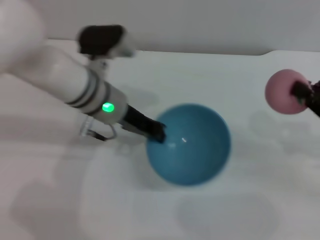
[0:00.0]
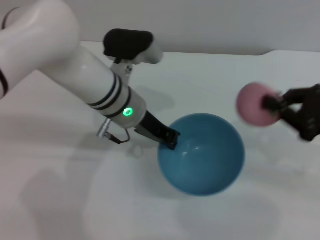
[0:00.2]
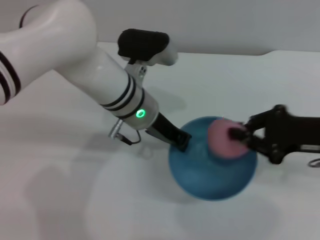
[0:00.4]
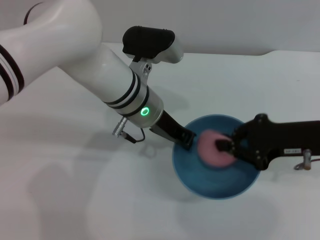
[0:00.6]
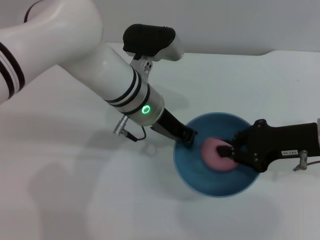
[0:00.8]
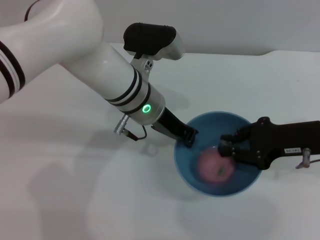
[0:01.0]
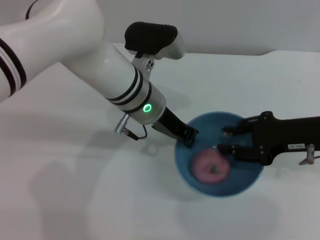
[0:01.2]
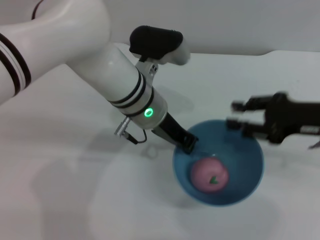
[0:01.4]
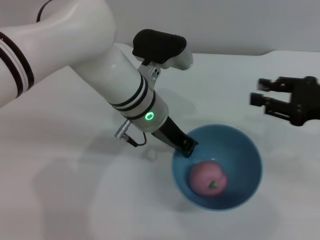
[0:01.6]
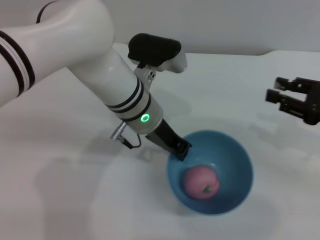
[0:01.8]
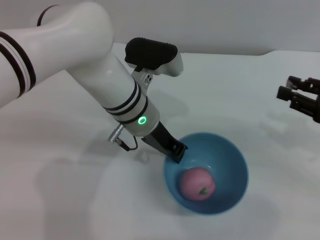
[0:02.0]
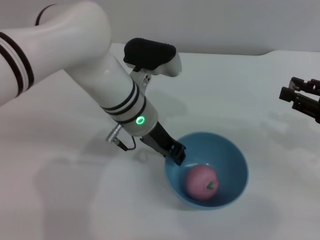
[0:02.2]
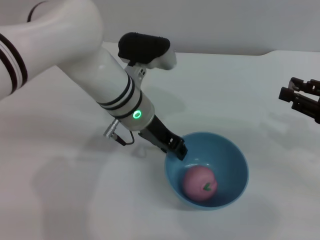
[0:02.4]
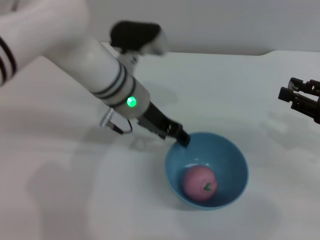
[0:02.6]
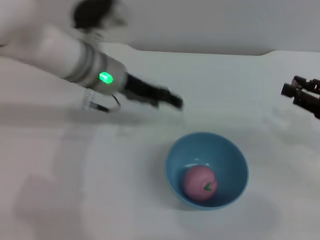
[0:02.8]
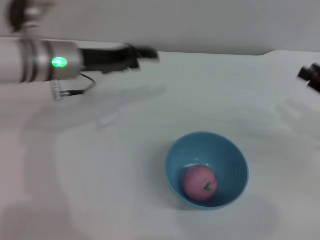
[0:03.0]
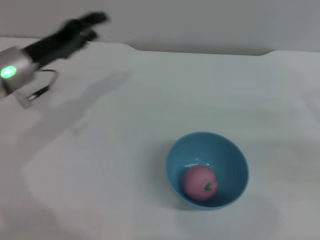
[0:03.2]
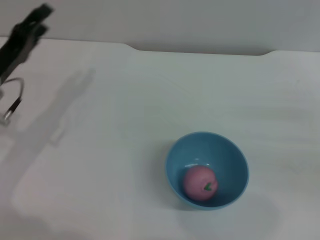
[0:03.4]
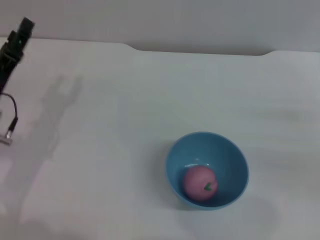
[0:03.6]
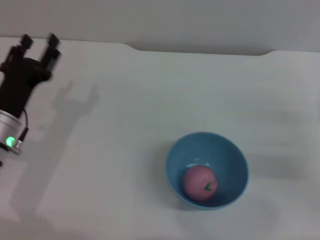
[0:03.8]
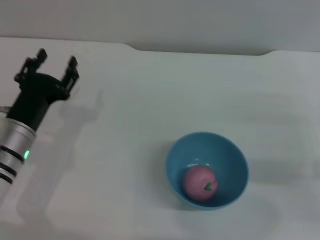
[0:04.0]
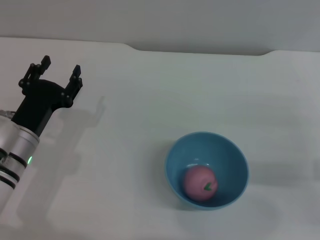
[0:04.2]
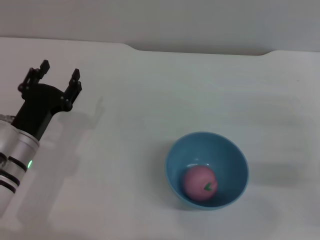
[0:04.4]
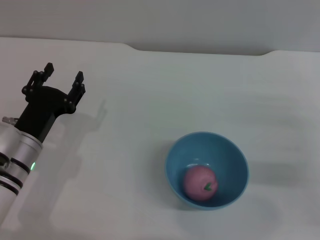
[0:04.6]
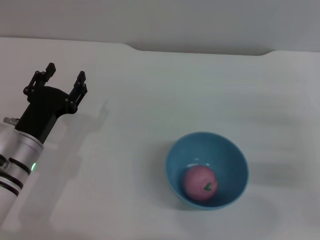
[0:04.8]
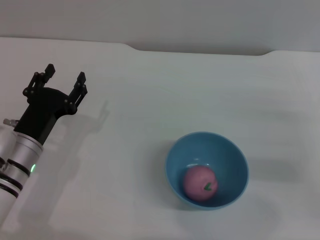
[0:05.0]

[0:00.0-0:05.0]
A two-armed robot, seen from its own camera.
Task of the whole recording: put the peach into the blue bowl and pour it out repeatedly.
Step, 0:00.0 to 0:01.2: Place the peach into the bowl.
Step, 0:01.6 to 0:03.0: Place the bowl on the table.
0:00.0 to 0:01.6: The left gripper moves to the right, about 5 cm, while the right gripper opens its fingers.
0:01.6 to 0:03.4: The right gripper heads to the right and downward, covering roughly 10 cm, while the left gripper goes approximately 25 cm to the left, and opens its fingers.
0:03.4 to 0:05.0: The left gripper travels backward, to the right and downward by some 10 cm.
